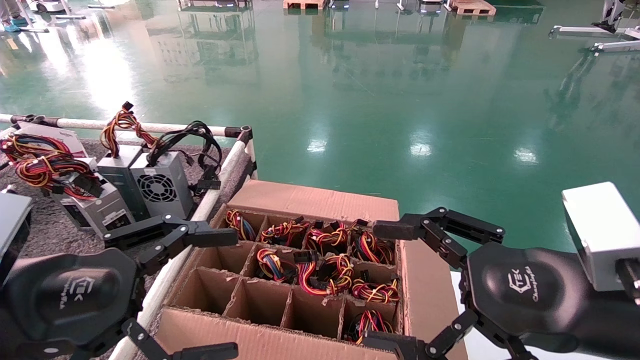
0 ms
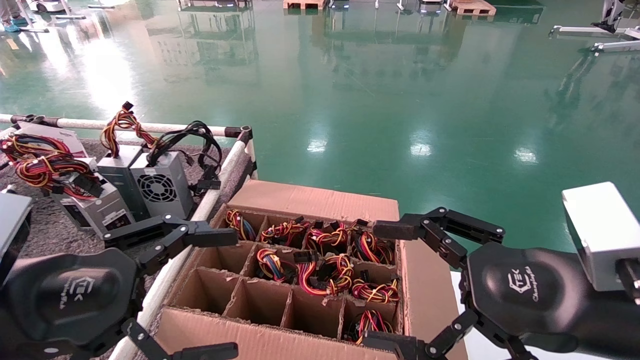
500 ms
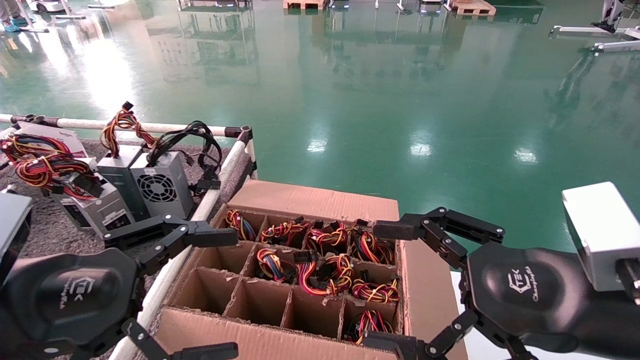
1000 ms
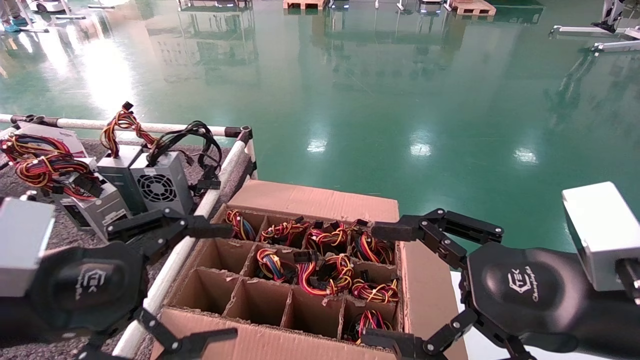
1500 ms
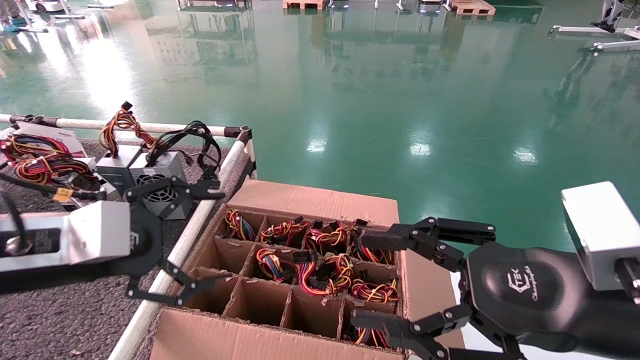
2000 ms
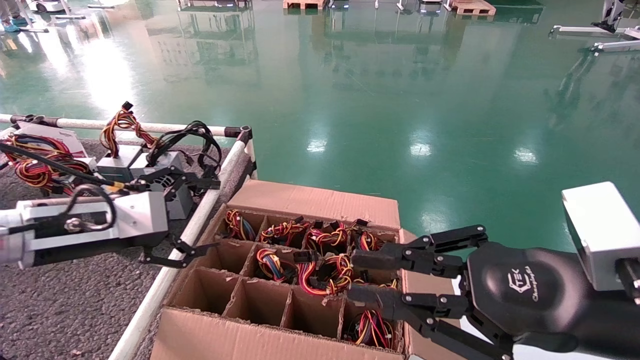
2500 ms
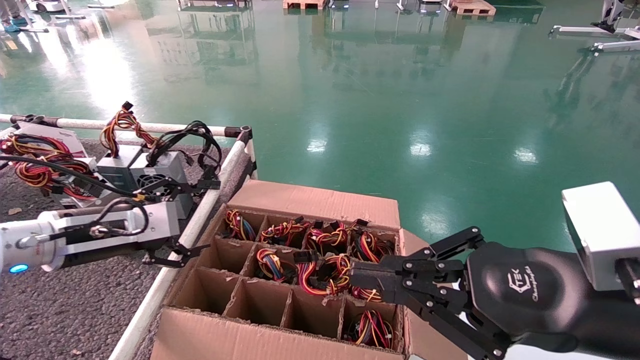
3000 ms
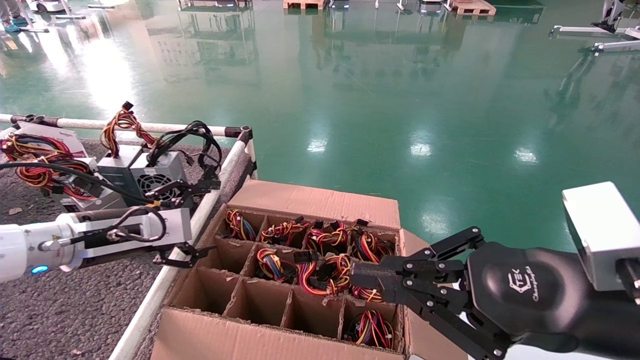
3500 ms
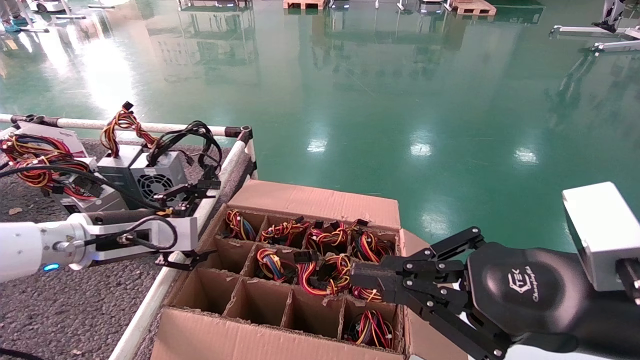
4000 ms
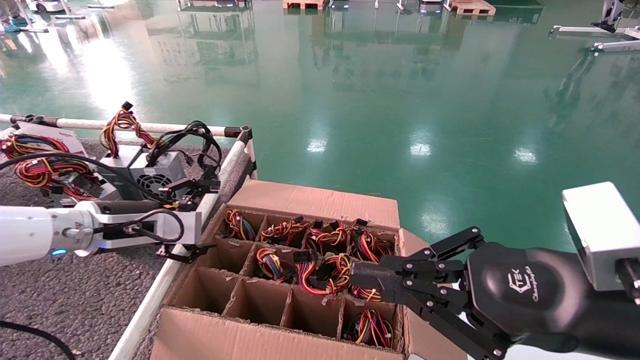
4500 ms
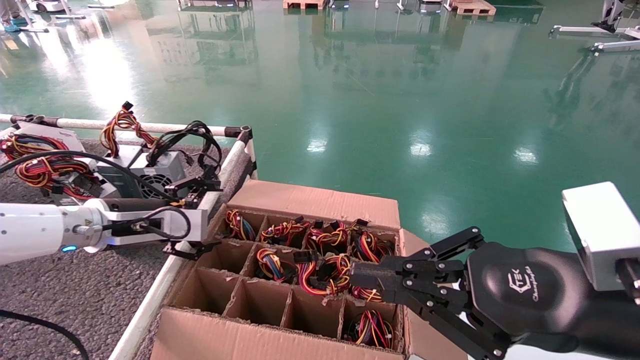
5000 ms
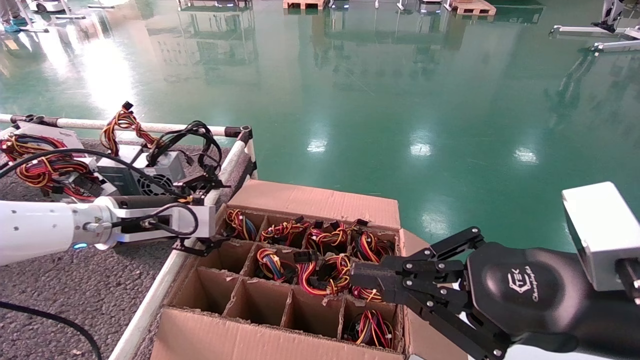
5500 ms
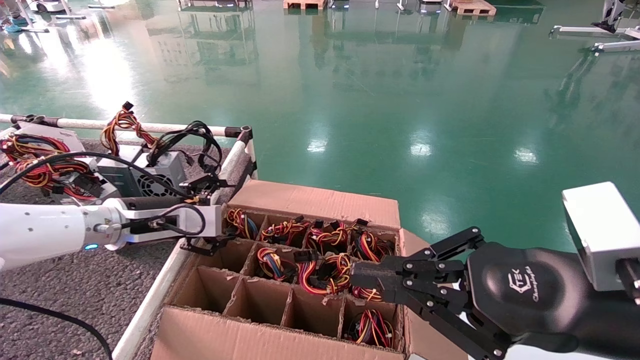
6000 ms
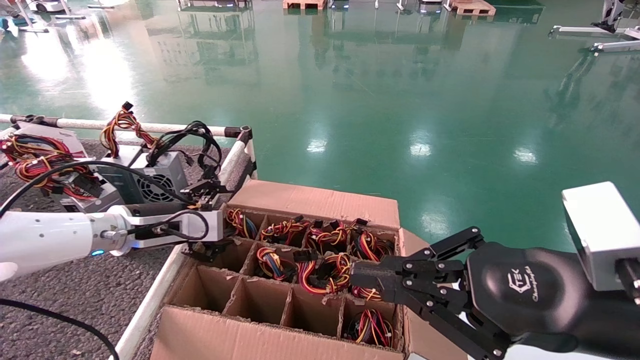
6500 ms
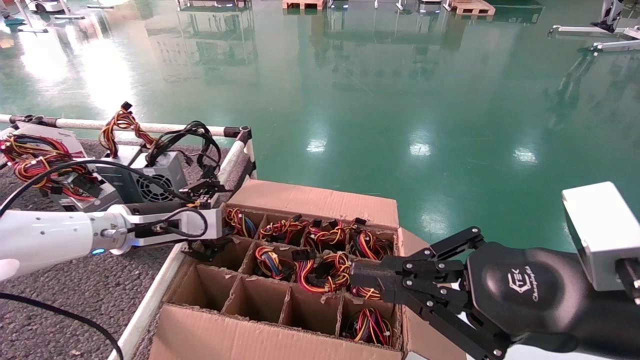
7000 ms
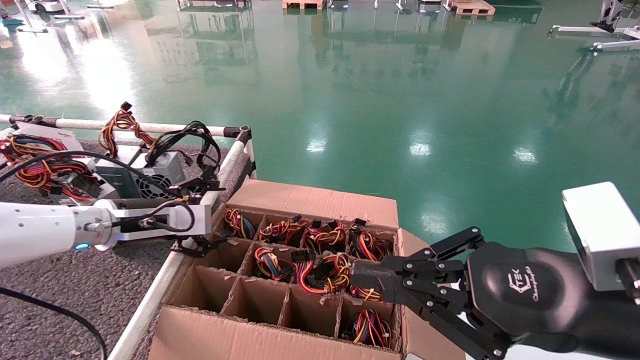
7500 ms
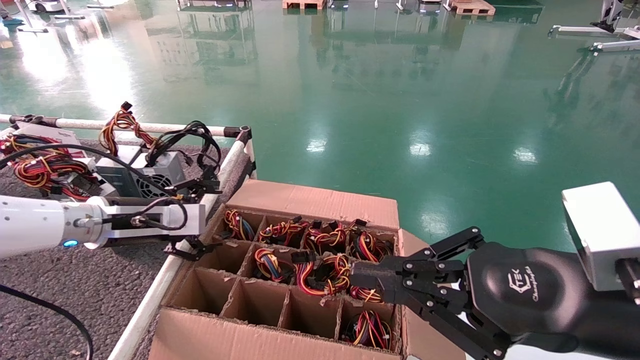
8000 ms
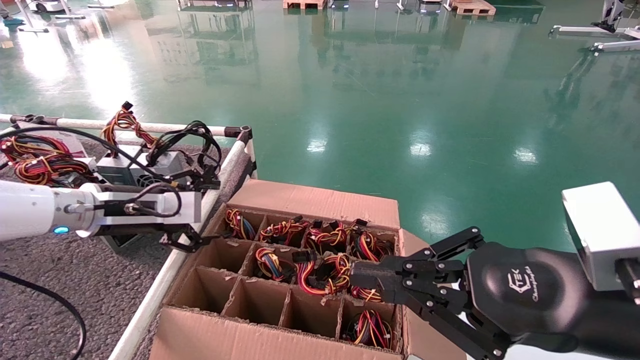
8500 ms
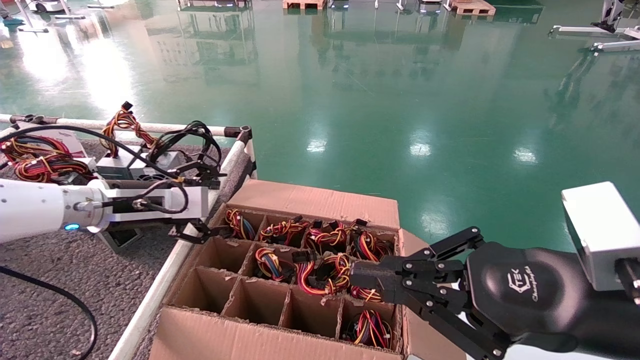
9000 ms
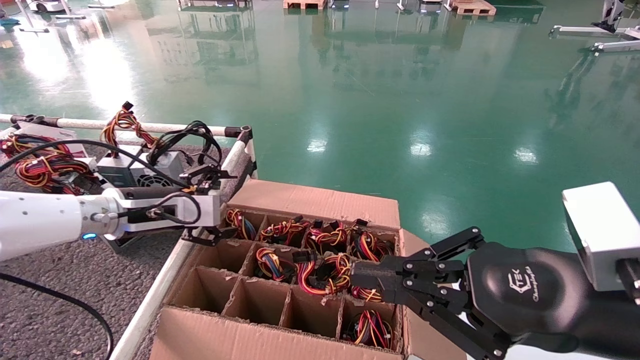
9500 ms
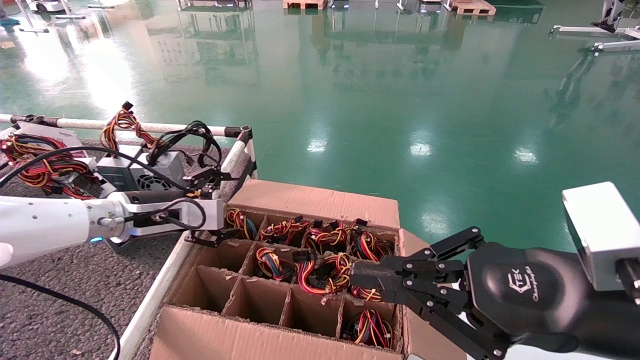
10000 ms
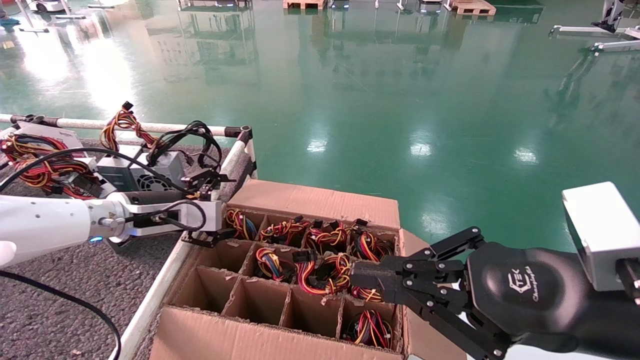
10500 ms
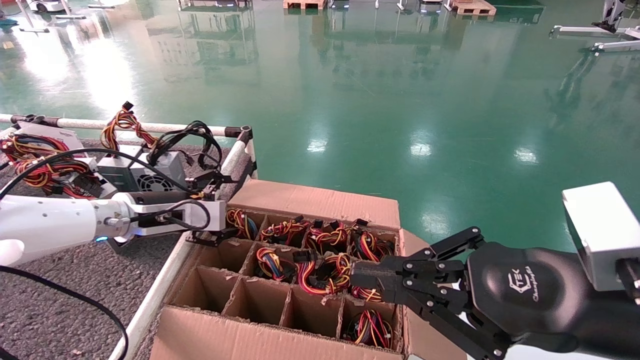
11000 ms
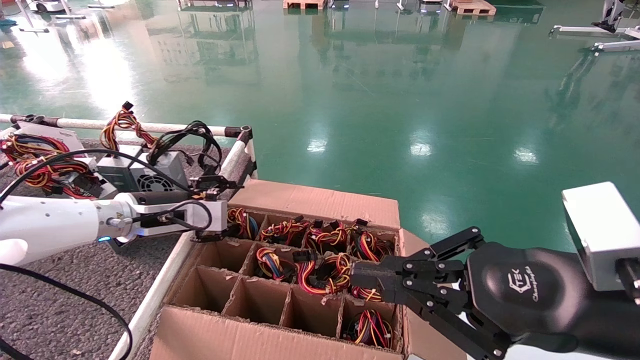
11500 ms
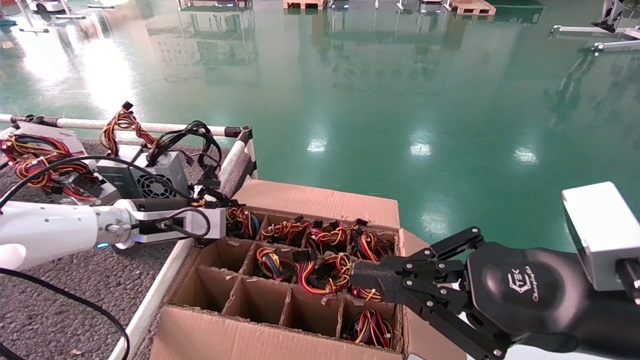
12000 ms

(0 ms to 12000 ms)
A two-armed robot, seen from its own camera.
0 ms - 2000 ms: The left gripper goes some 5 cm forward.
2000 ms - 4000 ms: The left gripper goes roughly 15 cm forward and downward; the right gripper closes.
4000 ms - 10000 ms: The grippers move only a little.
10000 ms - 12000 ms: The left gripper closes up.

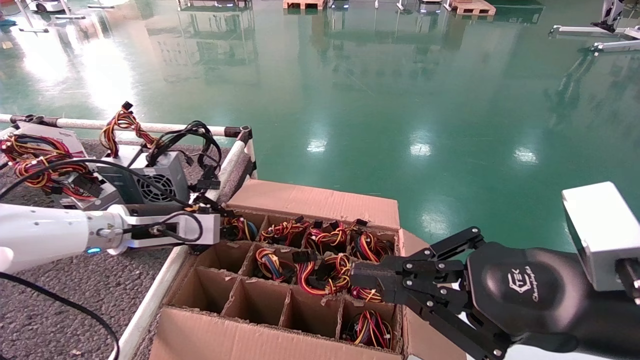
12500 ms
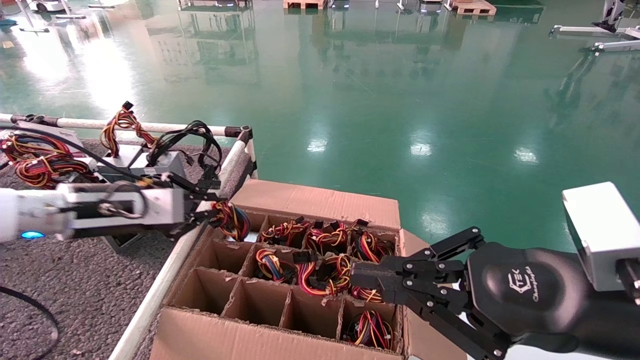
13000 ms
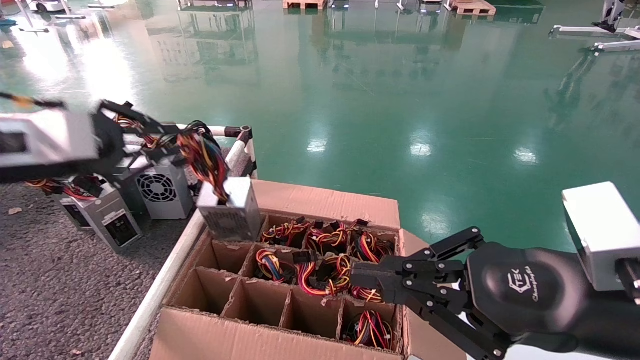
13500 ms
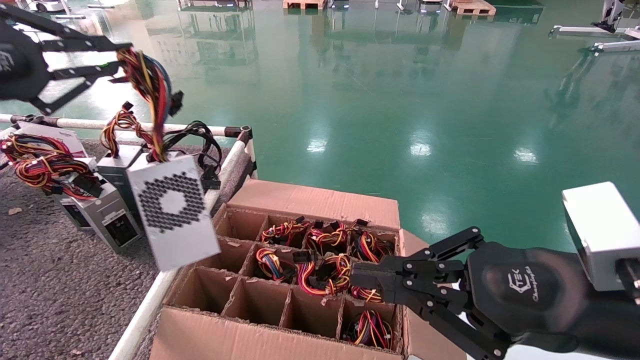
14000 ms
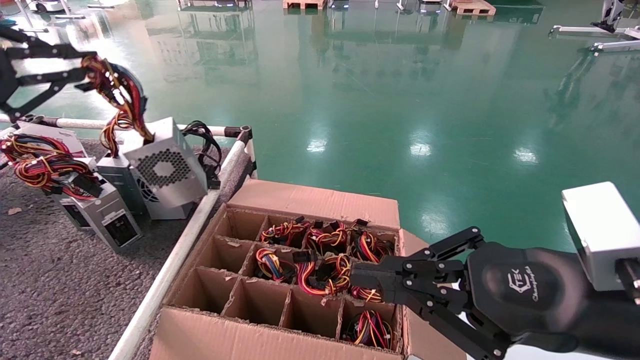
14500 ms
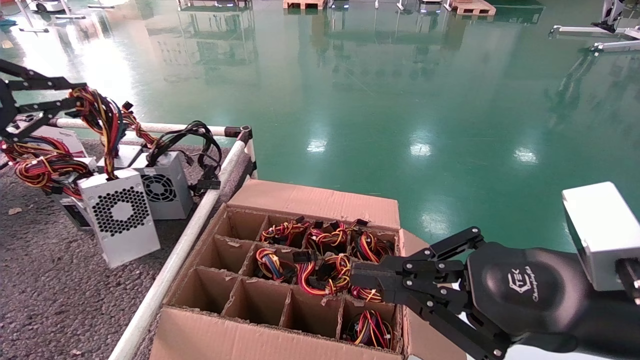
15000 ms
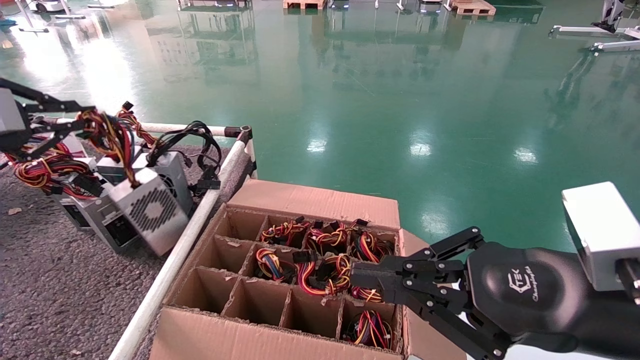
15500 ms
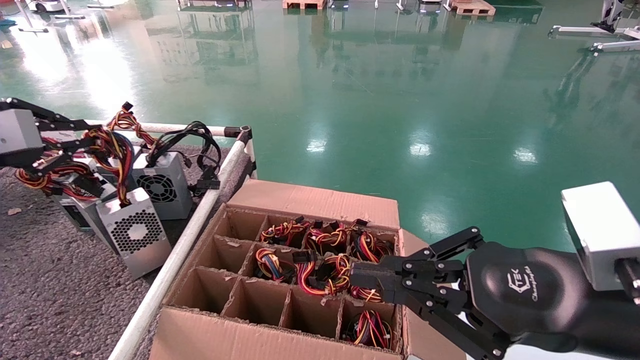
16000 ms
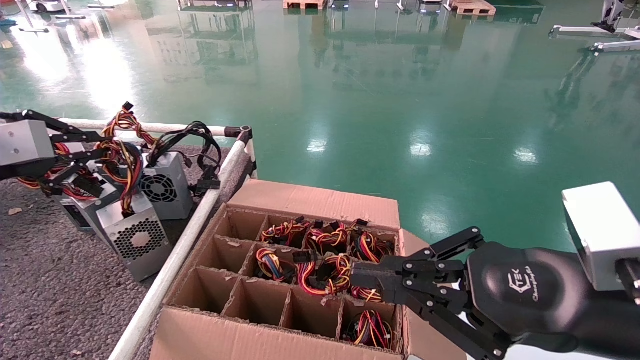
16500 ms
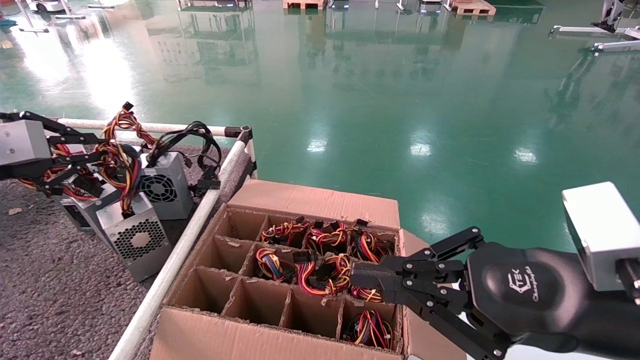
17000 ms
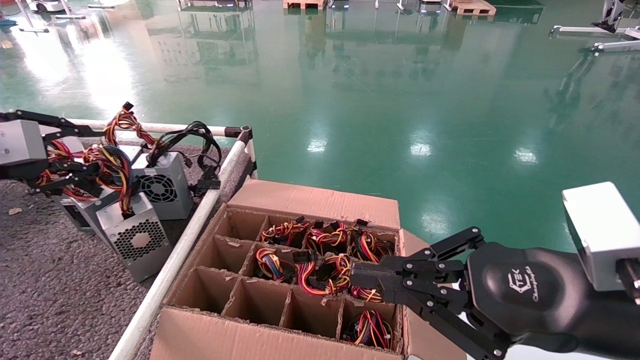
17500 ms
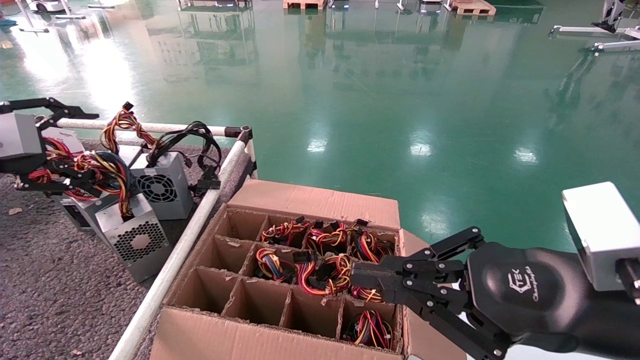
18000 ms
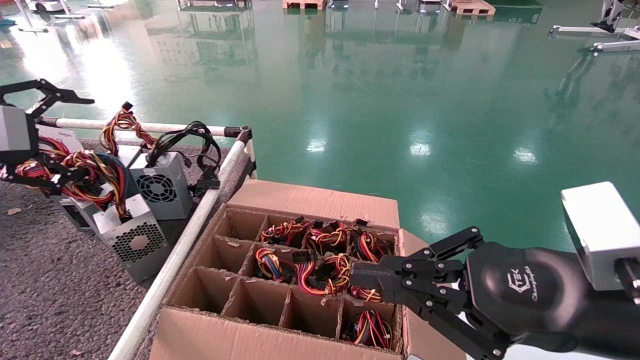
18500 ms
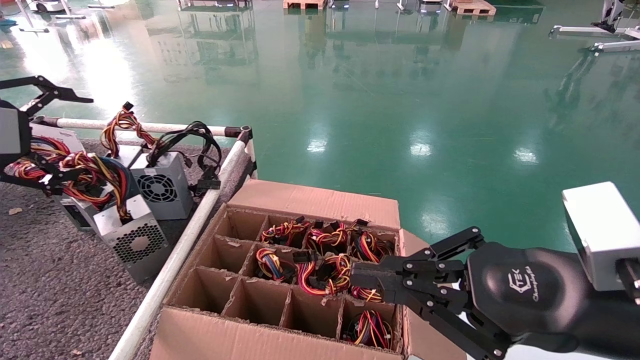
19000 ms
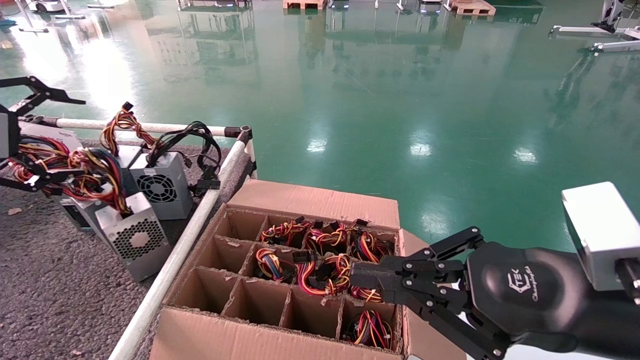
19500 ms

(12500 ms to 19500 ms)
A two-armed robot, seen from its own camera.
Step, 13000 ms - 19500 ms: Place the battery on the shelf.
12500 ms - 14500 ms: The left gripper goes about 30 cm upward, backward and to the left.
14500 ms - 16000 ms: The left gripper shifts roughly 10 cm downward and forward.
16000 ms - 17500 ms: Neither gripper changes place.
17500 ms - 19500 ms: The left gripper changes place by some 5 cm, and opens its fingers.

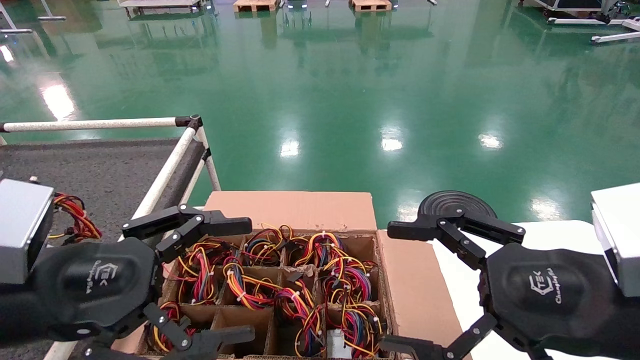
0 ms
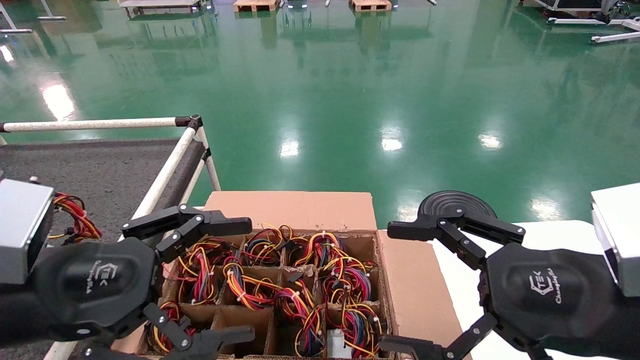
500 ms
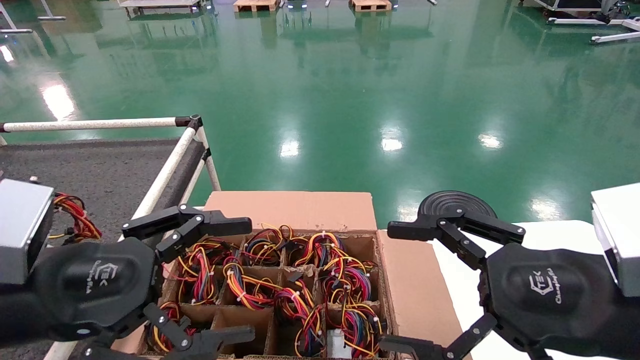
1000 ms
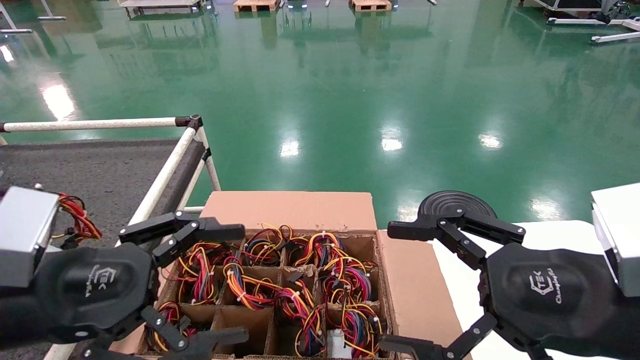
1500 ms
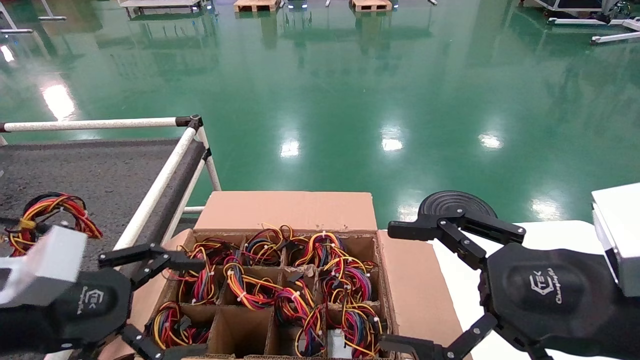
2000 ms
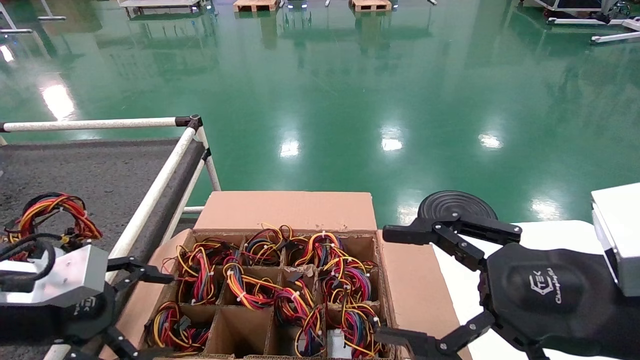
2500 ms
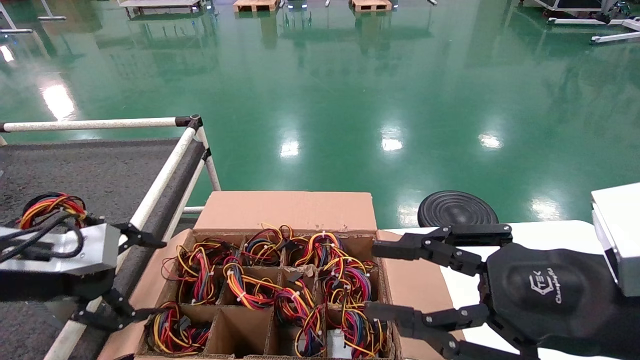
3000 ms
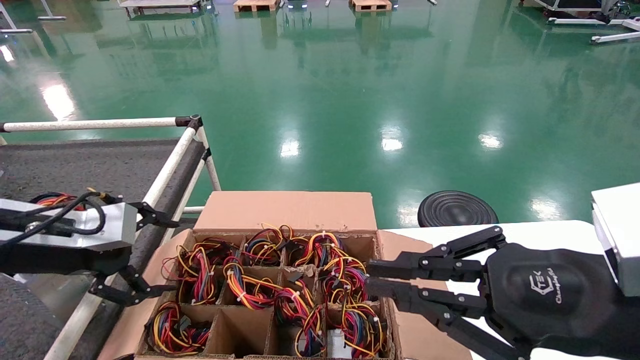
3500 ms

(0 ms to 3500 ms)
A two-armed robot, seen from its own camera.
0 ms - 2000 ms: The left gripper ends up about 5 cm from where it was.
2000 ms - 3500 ms: The left gripper goes about 10 cm forward. The right gripper closes its fingers.
